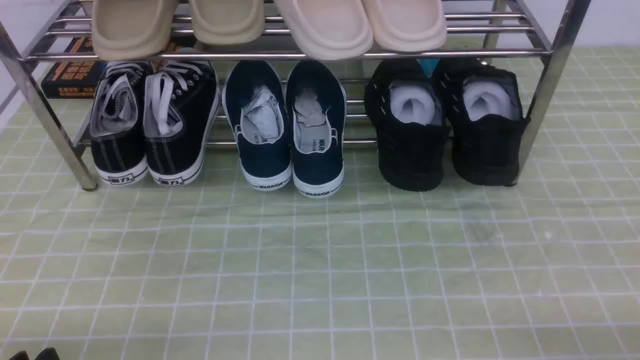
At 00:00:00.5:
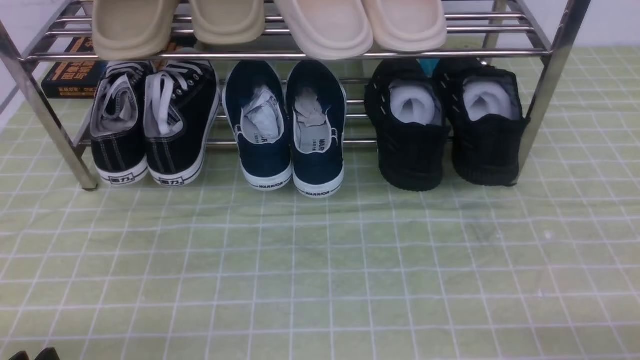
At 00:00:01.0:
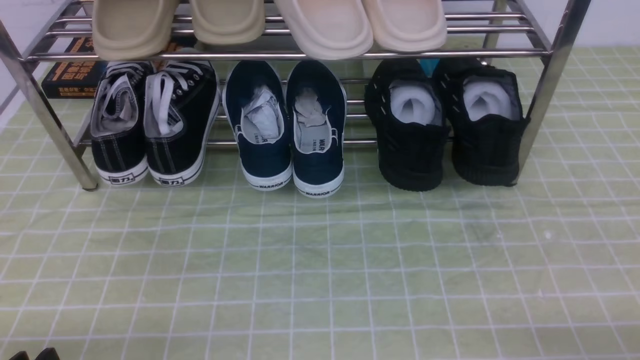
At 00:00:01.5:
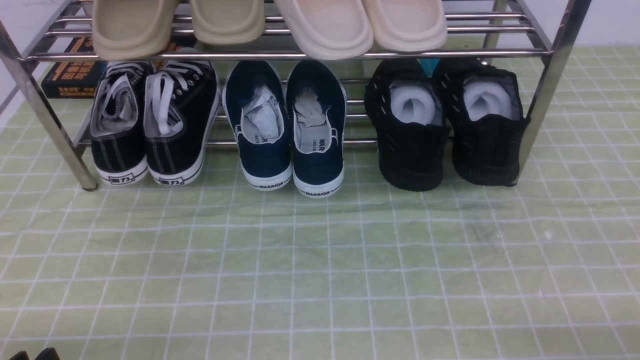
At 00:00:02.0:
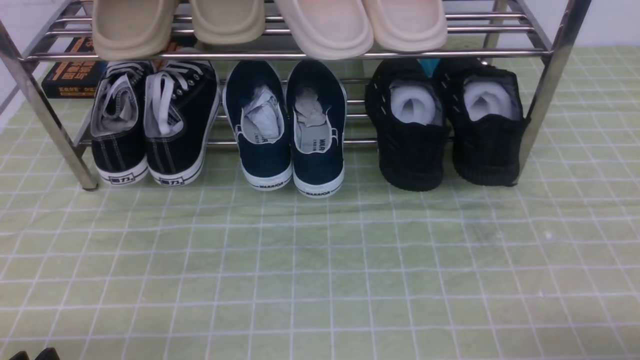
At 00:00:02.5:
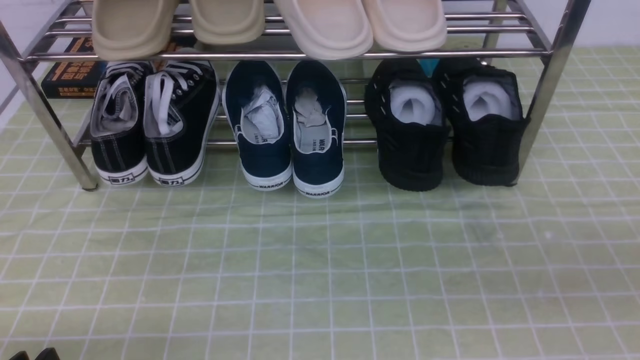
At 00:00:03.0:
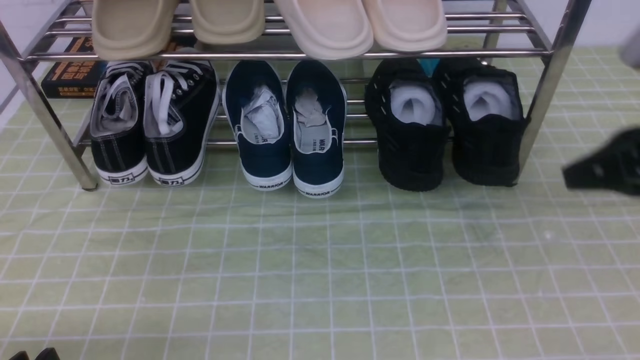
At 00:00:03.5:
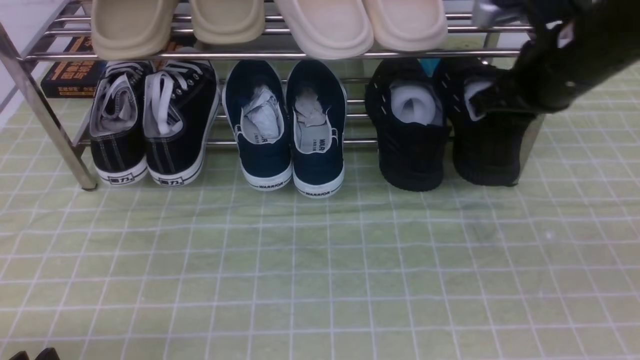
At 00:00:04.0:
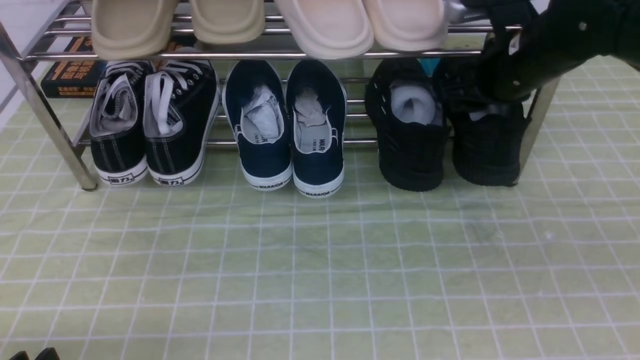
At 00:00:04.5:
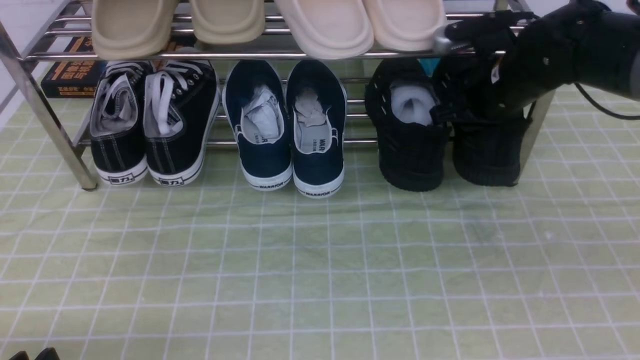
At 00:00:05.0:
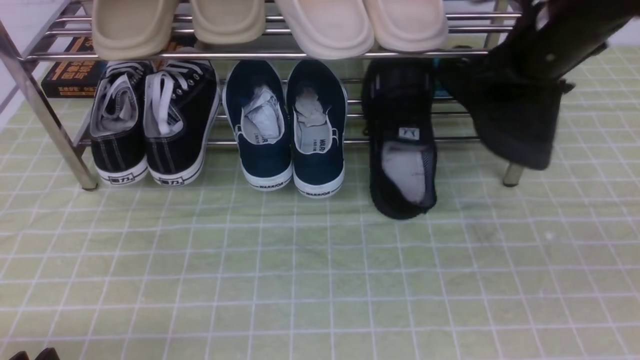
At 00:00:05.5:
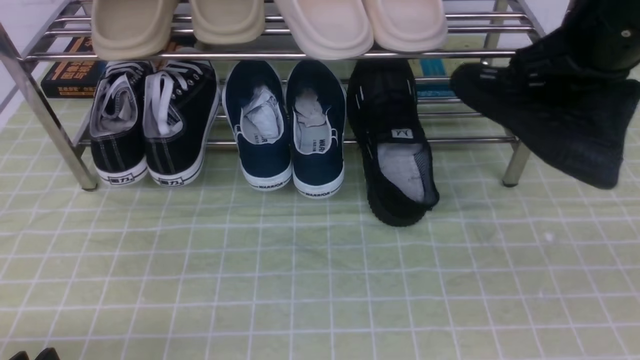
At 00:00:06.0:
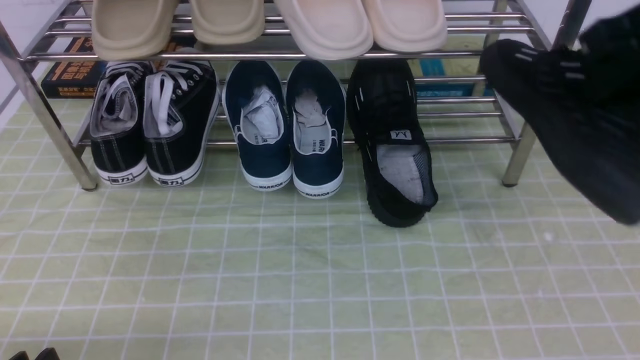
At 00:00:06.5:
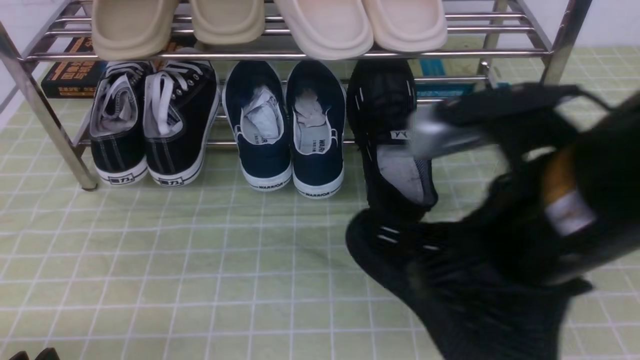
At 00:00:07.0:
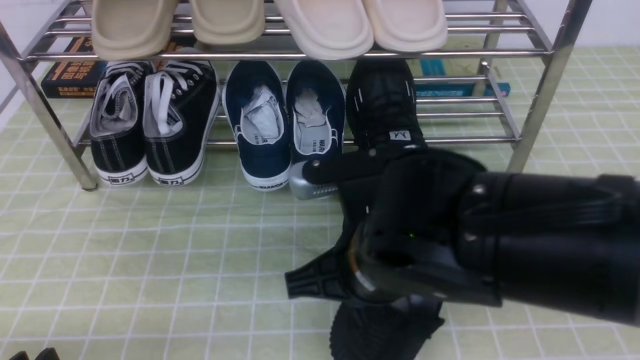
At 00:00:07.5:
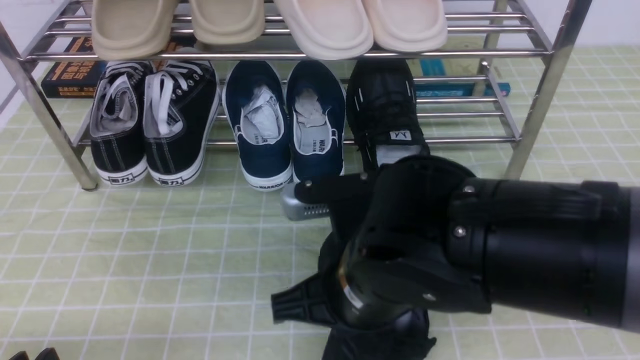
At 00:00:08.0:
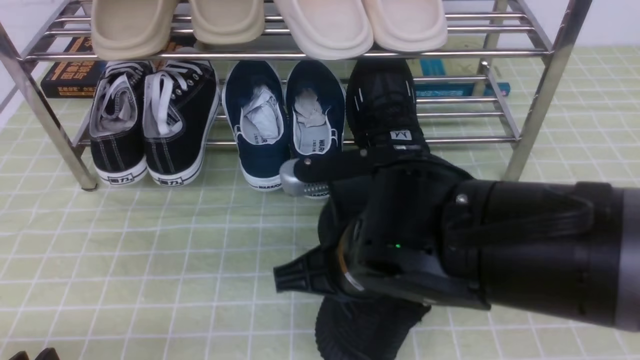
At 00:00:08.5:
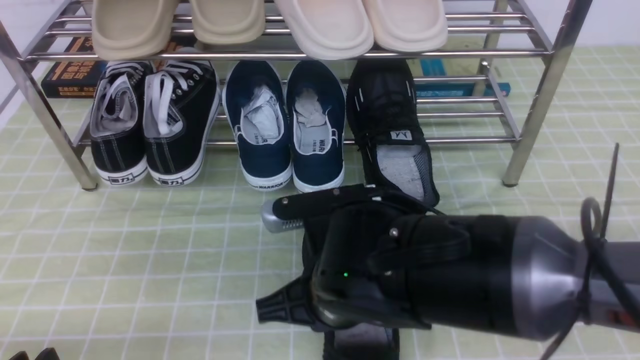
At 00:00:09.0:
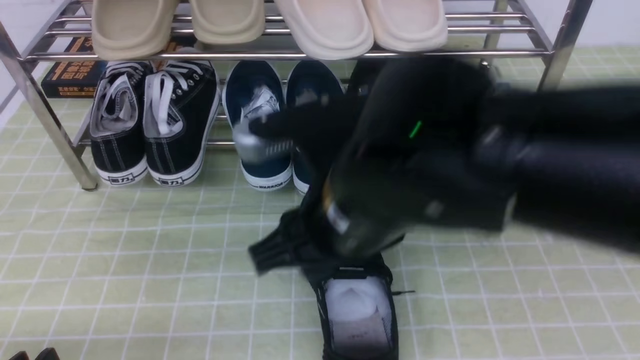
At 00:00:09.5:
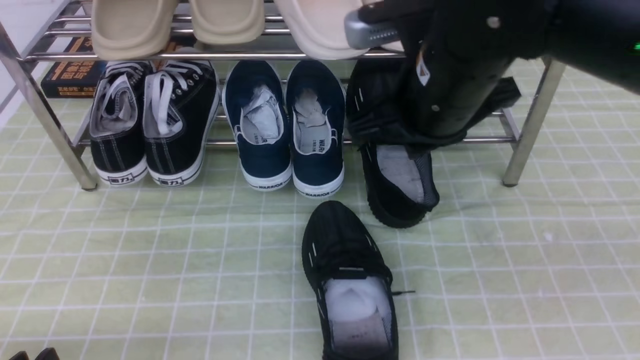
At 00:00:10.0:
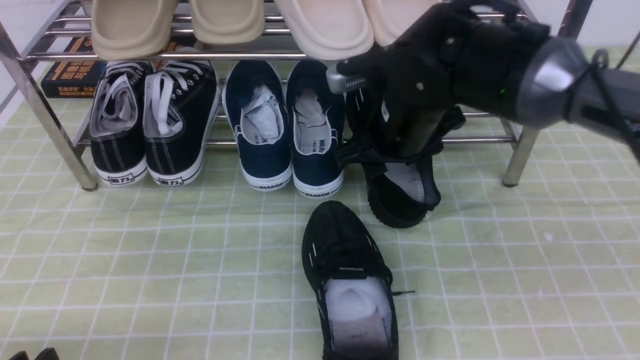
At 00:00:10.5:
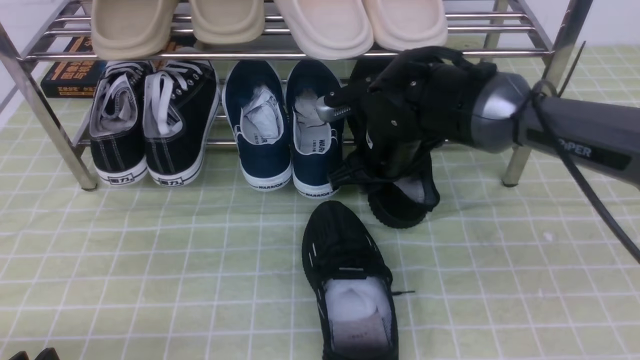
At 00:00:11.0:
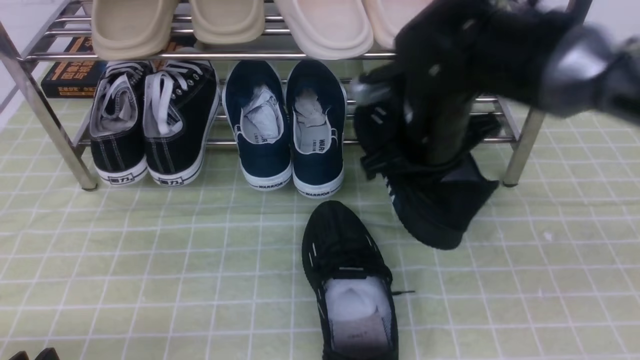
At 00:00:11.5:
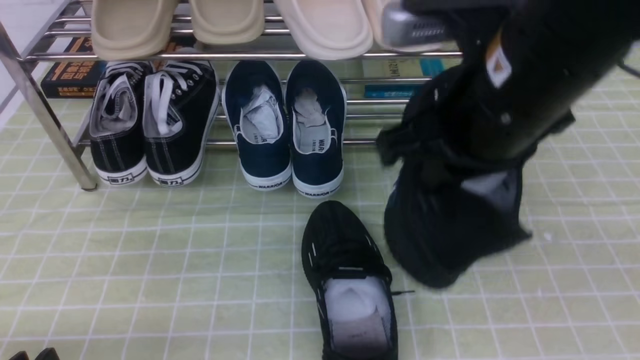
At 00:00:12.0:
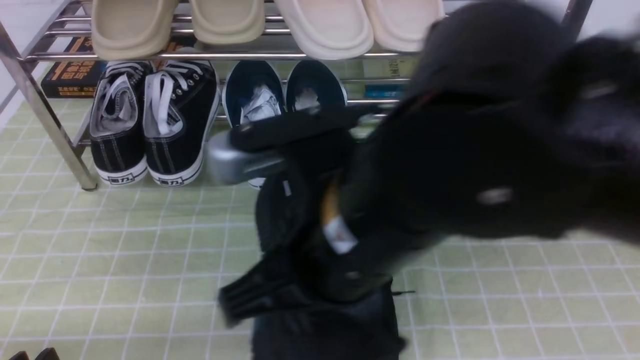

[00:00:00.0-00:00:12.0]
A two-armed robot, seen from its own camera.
Step, 00:00:00.0 to 00:00:04.5: use the right arm to clamp a shoe on the right side of the shoe rack.
Step, 00:00:05.0 to 00:00:09.0: use the right arm to take out the clamped shoe from the shoe rack and put it down.
Step, 00:00:09.5 to 00:00:10.5: use the right arm to clamp a shoe on the right side of the shoe rack.
00:00:02.0 to 00:00:04.0: The right gripper travels forward by about 35 cm, and closes, then reopens.
00:00:04.0 to 00:00:06.0: The right gripper heads backward and upward, covering some 20 cm, and closes its fingers.
00:00:06.0 to 00:00:08.0: The right gripper moves to the left and downward, about 25 cm.
00:00:08.0 to 00:00:10.0: The right gripper heads forward, covering some 15 cm, and opens its fingers.
00:00:10.0 to 00:00:12.0: The right gripper heads backward and upward, covering approximately 20 cm, and closes its fingers.

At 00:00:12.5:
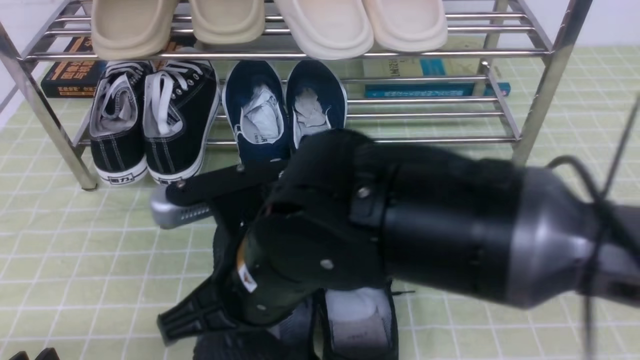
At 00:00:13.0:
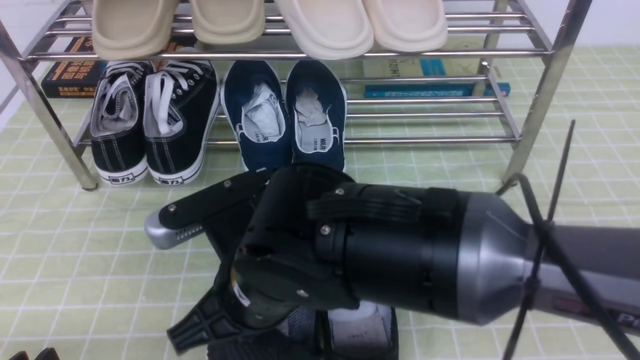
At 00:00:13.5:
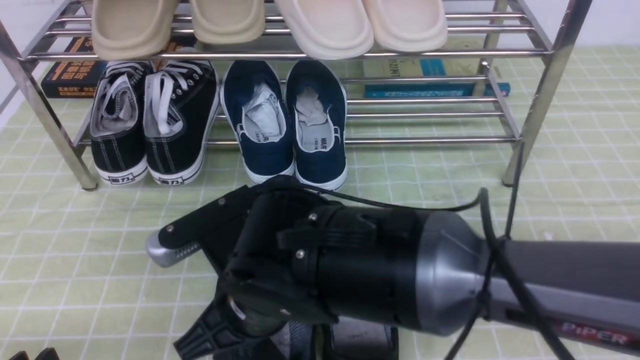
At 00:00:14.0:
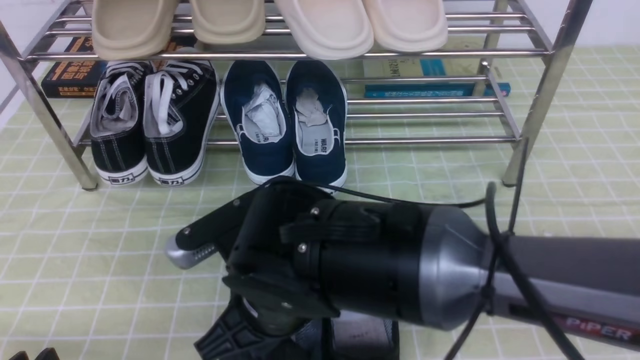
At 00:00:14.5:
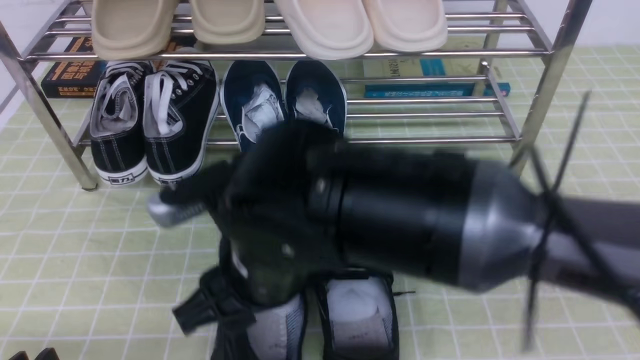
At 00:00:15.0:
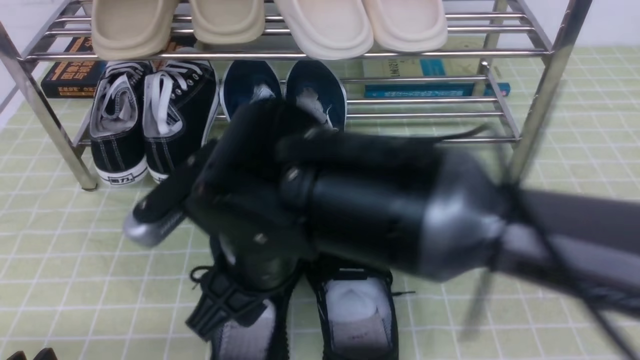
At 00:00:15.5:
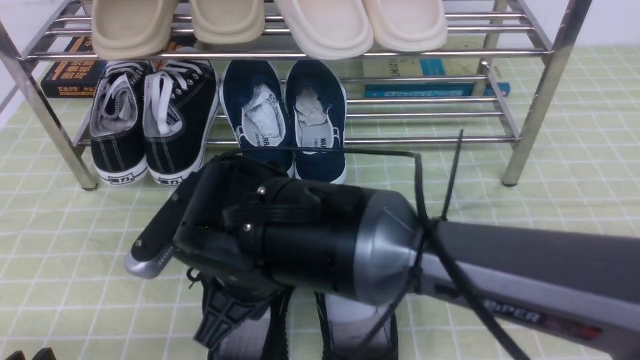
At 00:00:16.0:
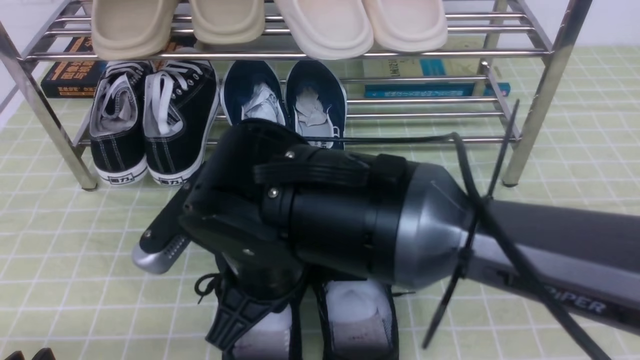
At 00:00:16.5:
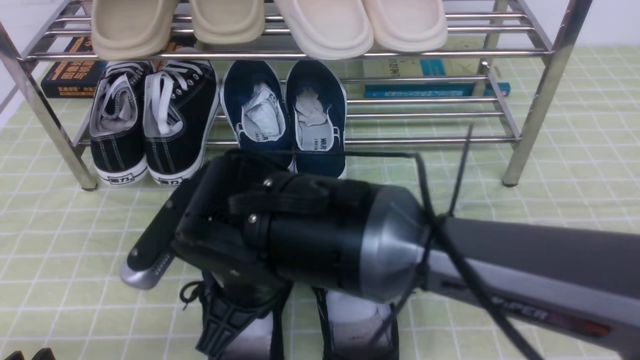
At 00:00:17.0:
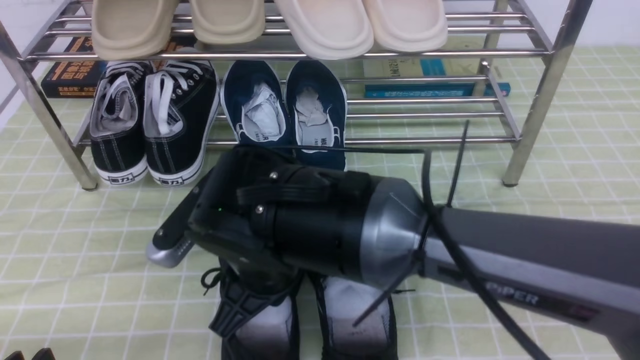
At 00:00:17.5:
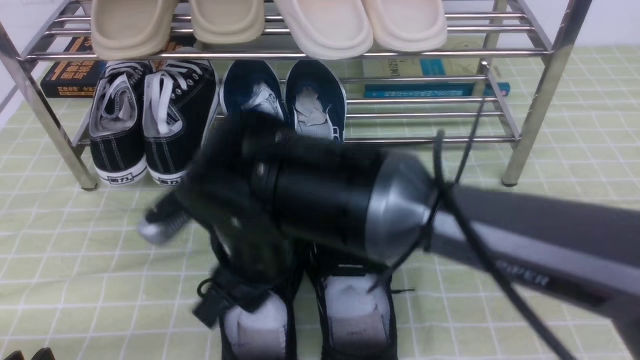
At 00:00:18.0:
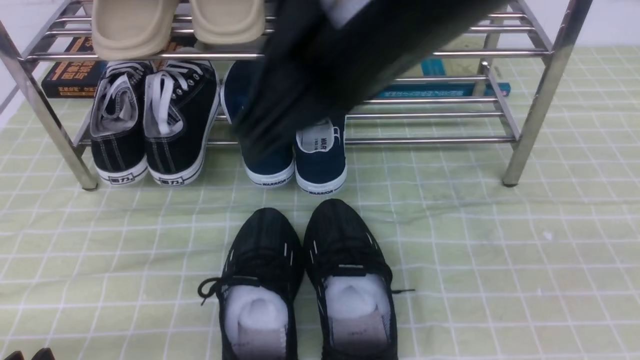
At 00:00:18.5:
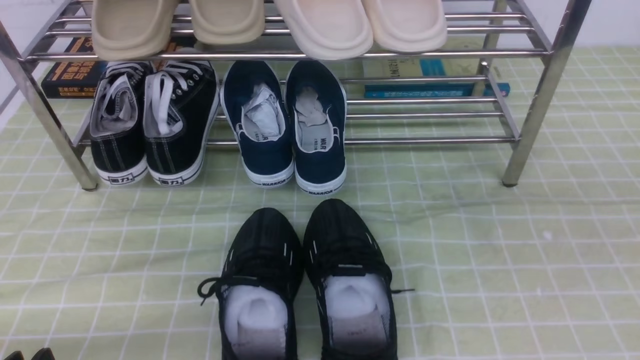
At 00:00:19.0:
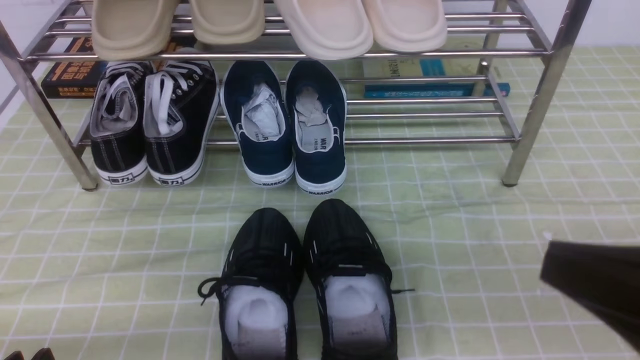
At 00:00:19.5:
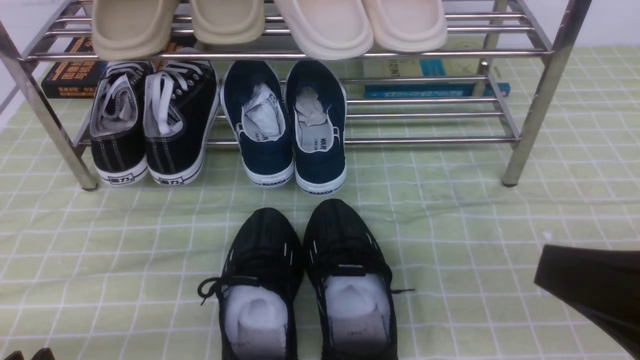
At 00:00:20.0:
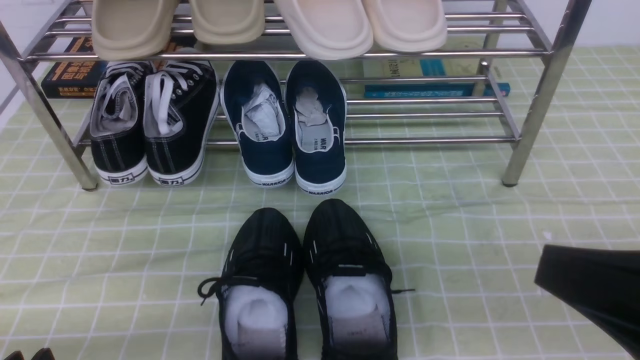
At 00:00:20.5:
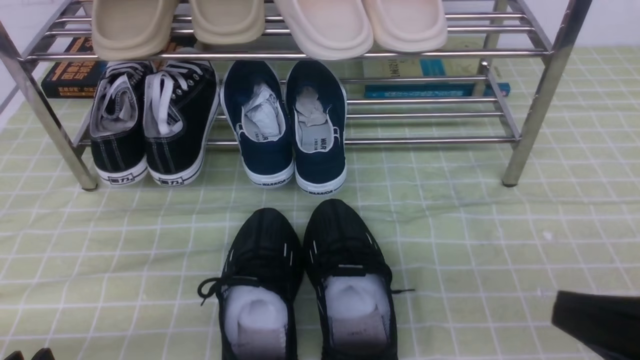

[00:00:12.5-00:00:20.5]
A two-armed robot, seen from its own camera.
Step, 00:00:12.5 to 00:00:14.5: use the right arm to take out the clamped shoe from the shoe rack and put it down.
00:00:12.5 to 00:00:14.5: The right gripper opens.
00:00:14.5 to 00:00:16.5: The right gripper closes.
00:00:16.5 to 00:00:18.5: The right gripper moves to the right, upward and backward, roughly 40 cm, and opens and closes again.
00:00:18.5 to 00:00:20.5: The right gripper travels downward by roughly 20 cm.
